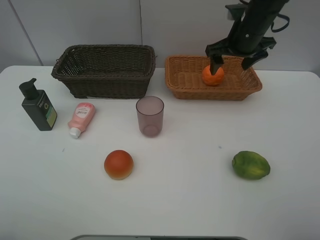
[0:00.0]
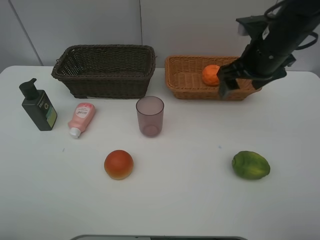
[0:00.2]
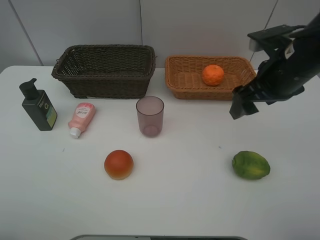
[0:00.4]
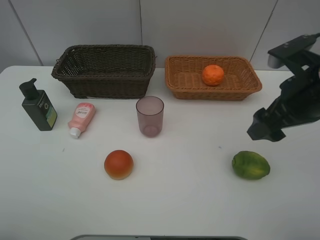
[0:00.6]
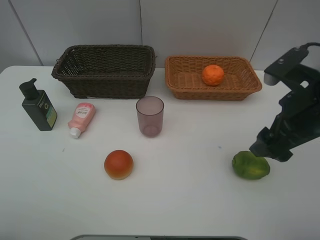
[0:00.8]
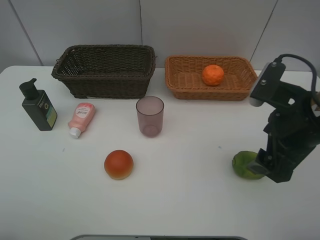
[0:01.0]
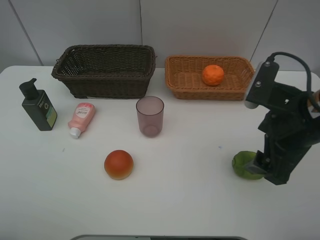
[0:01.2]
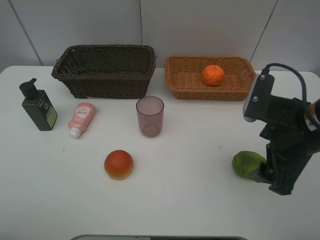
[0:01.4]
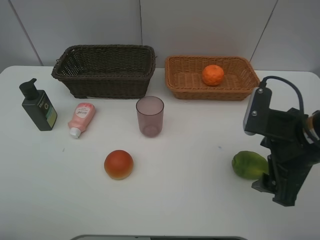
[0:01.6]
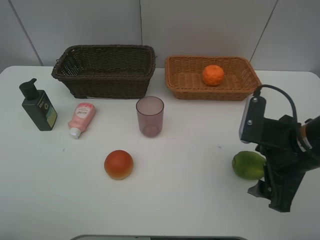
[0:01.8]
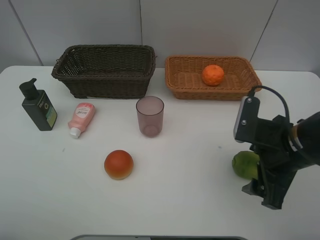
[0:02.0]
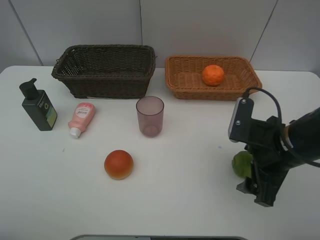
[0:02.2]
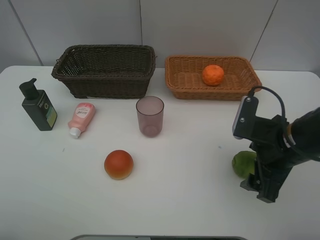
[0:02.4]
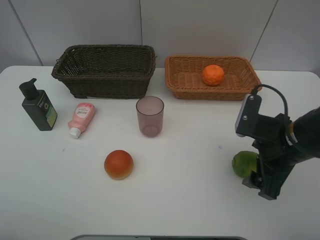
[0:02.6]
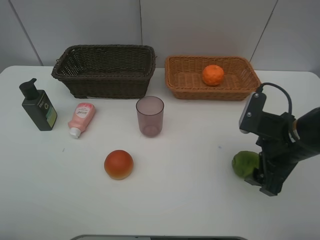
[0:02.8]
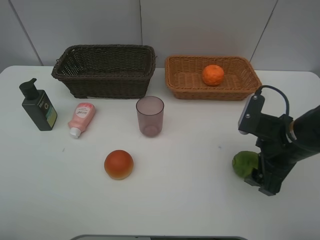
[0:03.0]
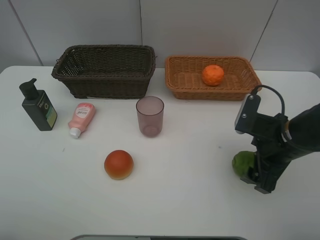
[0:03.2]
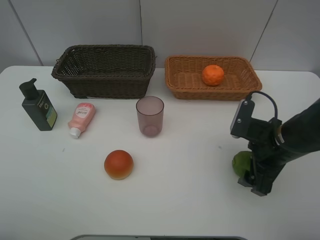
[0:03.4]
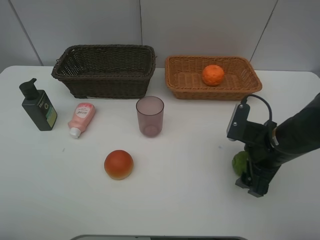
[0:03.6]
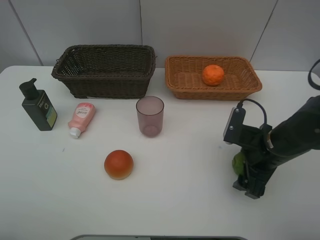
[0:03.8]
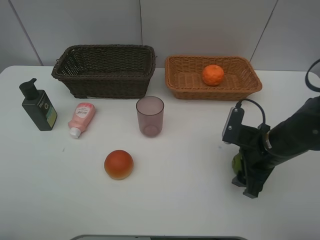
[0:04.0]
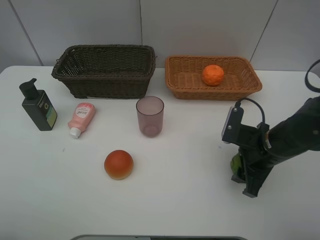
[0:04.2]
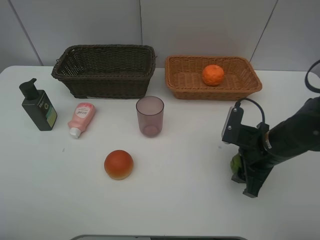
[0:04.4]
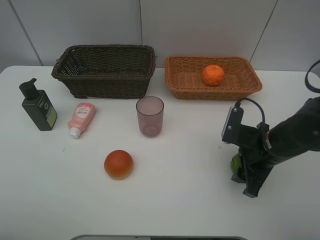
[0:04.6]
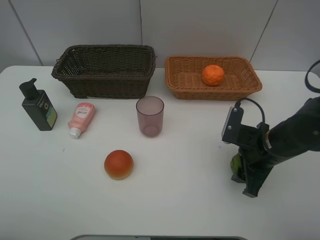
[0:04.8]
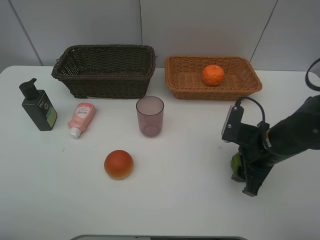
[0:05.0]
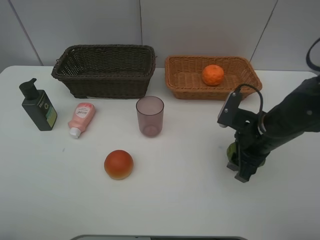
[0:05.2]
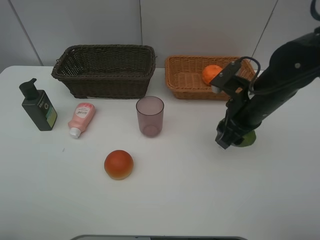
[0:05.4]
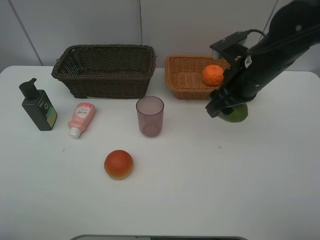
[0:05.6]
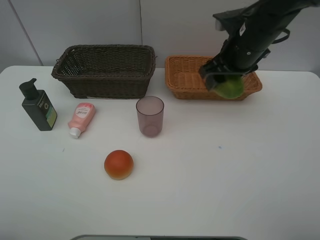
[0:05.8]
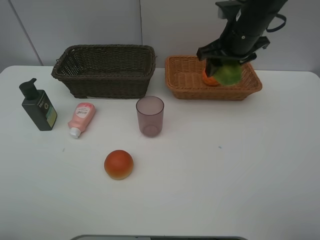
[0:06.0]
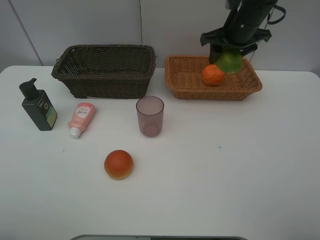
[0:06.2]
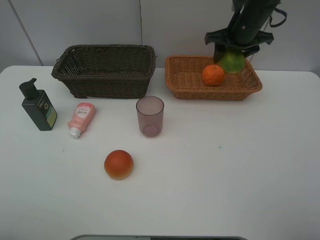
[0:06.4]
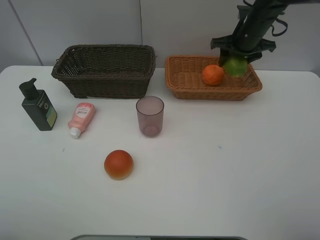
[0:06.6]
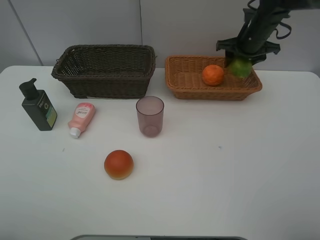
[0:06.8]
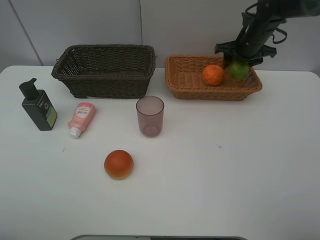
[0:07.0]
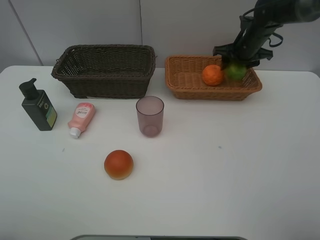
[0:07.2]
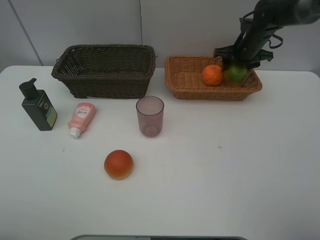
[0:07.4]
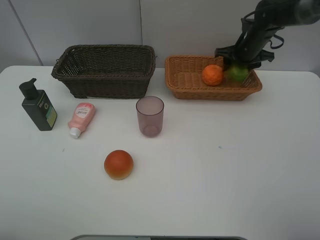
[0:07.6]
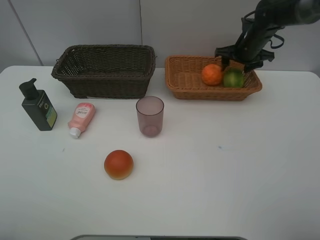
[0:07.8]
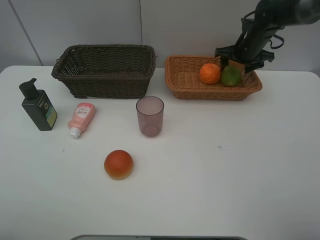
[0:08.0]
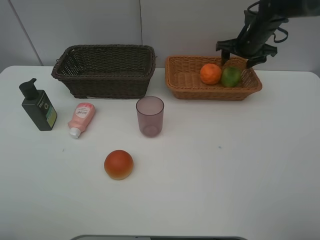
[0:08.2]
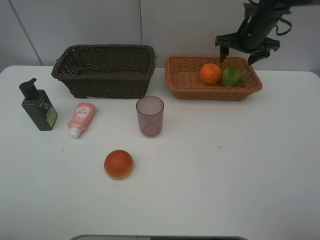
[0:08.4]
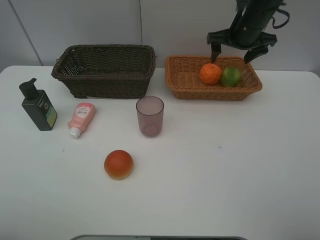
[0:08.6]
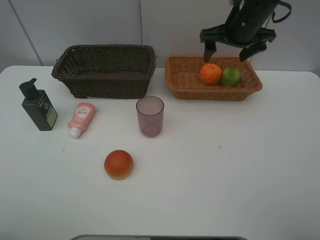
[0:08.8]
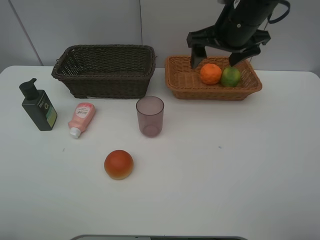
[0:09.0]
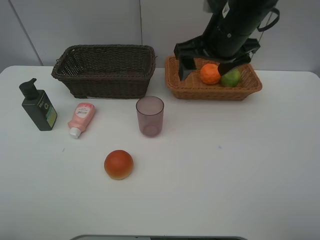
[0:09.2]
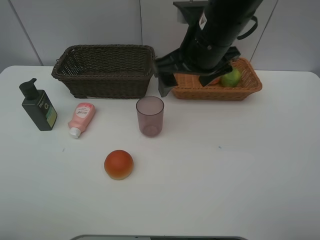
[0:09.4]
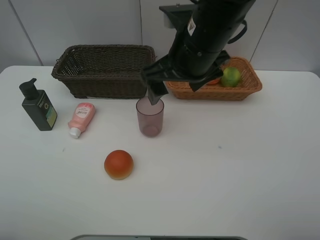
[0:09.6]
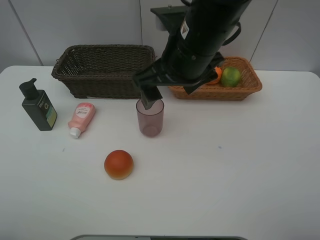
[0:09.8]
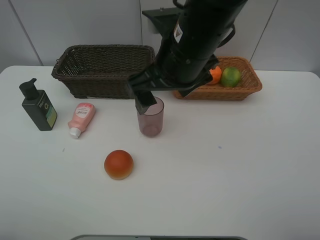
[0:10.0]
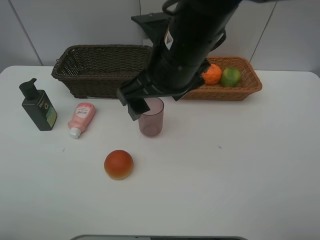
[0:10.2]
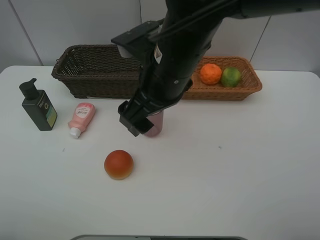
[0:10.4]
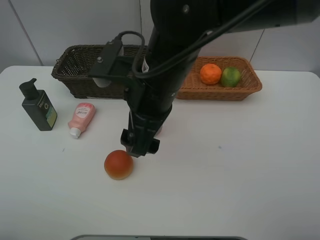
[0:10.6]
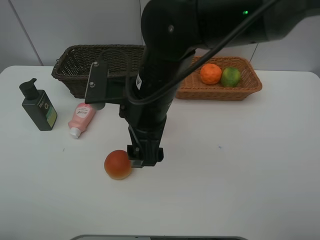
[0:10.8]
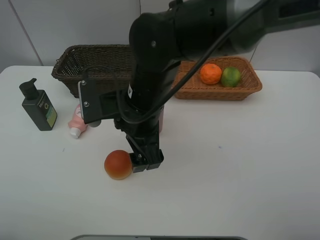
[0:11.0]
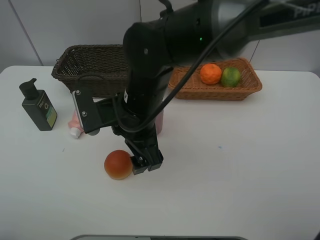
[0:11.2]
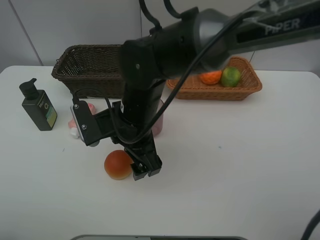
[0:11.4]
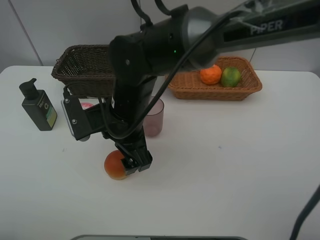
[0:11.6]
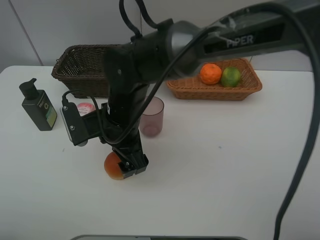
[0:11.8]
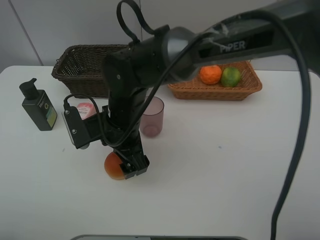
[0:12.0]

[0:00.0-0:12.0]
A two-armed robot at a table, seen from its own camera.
Task of the whole recording: place multiple objects separately in different baskets.
0:00.0 to 0:01.6: The right gripper is displaced backward by roughly 25 cm.
0:01.6 to 0:03.0: The right gripper moves some 5 cm.
0:03.0 to 0:04.4: The right gripper closes.
0:04.4 to 0:06.0: The right gripper is displaced forward and upward by some 25 cm.
0:06.0 to 0:07.6: The right gripper travels forward, downward and to the right by some 15 cm.
0:07.6 to 0:09.0: The right gripper shifts approximately 20 cm backward, to the left and upward, and opens.
0:09.0 to 0:10.4: The right gripper moves to the left and backward, approximately 15 cm.
0:10.4 to 0:12.0: The right gripper is displaced downward and to the left by some 15 cm.

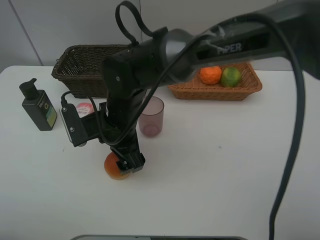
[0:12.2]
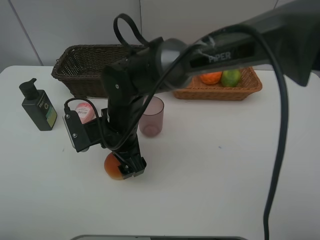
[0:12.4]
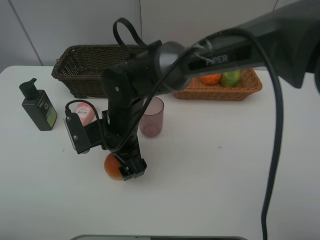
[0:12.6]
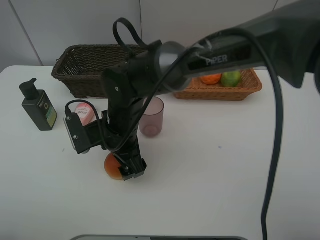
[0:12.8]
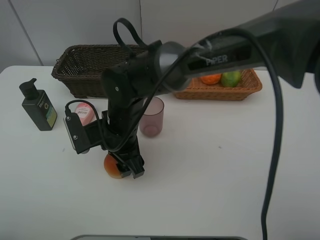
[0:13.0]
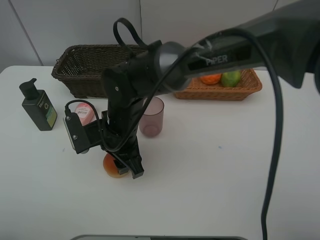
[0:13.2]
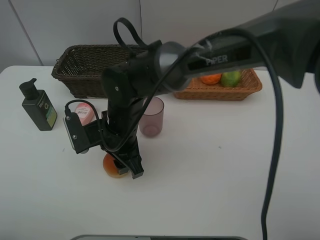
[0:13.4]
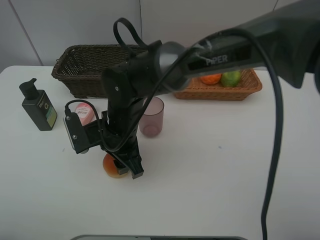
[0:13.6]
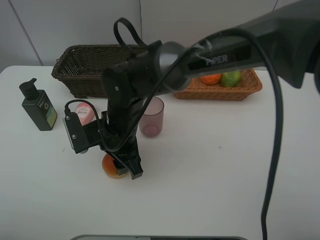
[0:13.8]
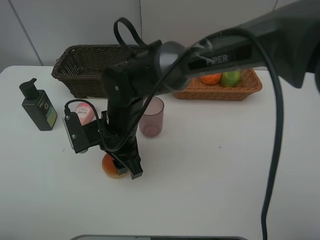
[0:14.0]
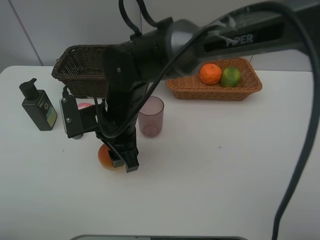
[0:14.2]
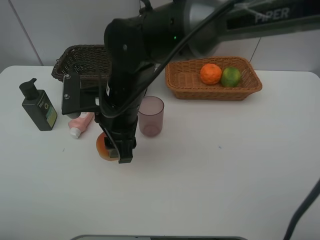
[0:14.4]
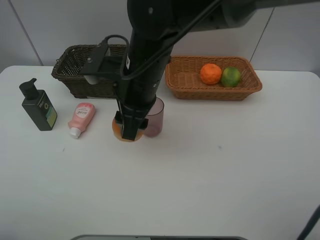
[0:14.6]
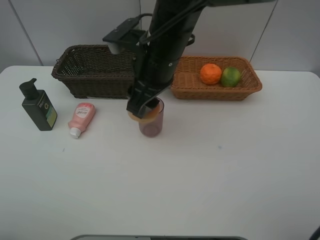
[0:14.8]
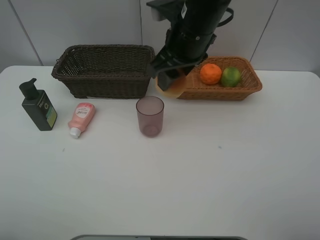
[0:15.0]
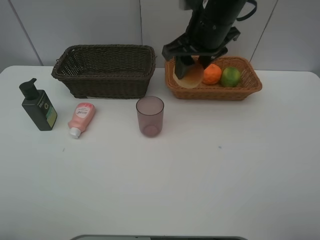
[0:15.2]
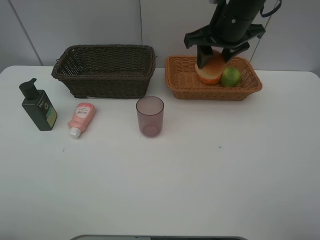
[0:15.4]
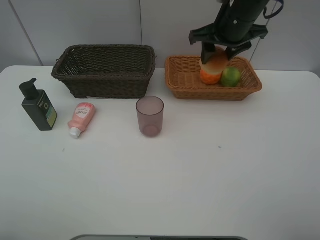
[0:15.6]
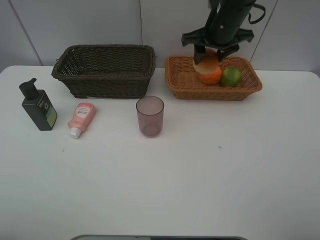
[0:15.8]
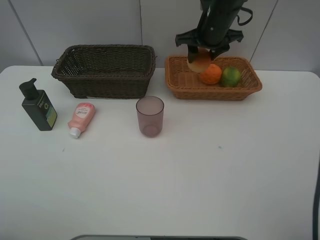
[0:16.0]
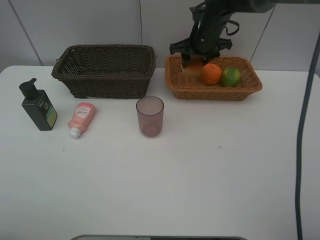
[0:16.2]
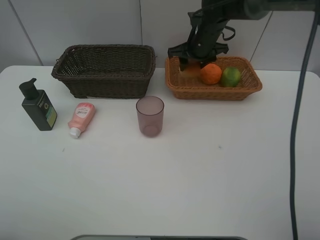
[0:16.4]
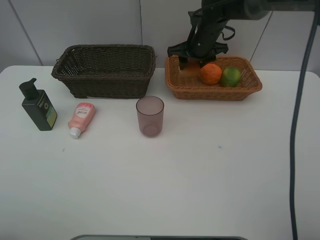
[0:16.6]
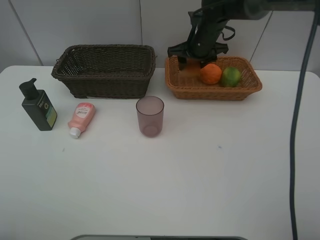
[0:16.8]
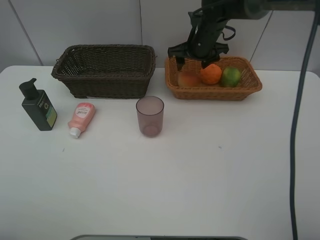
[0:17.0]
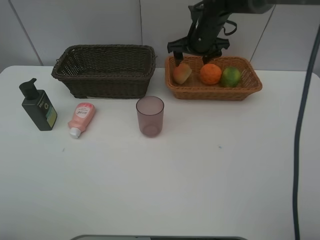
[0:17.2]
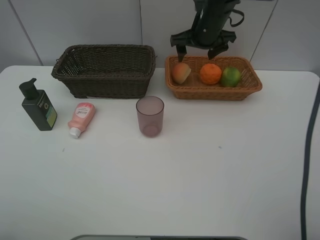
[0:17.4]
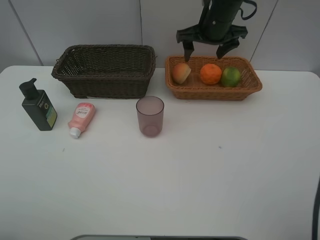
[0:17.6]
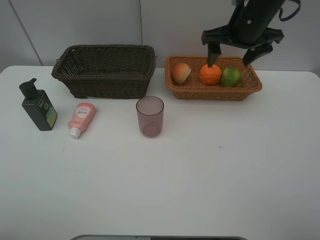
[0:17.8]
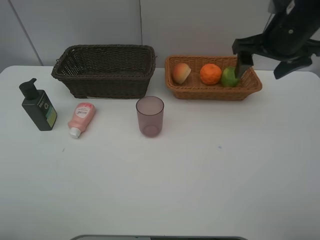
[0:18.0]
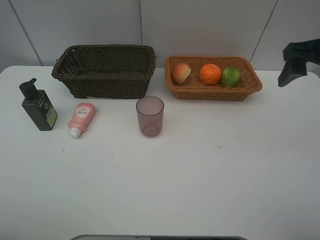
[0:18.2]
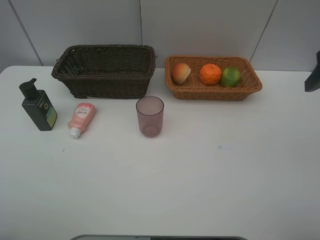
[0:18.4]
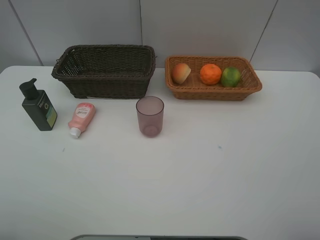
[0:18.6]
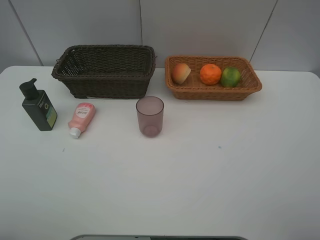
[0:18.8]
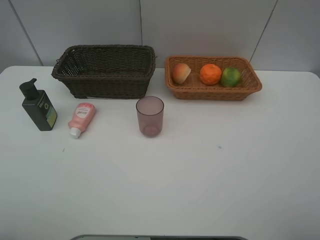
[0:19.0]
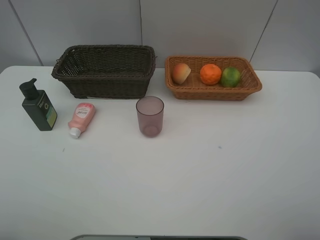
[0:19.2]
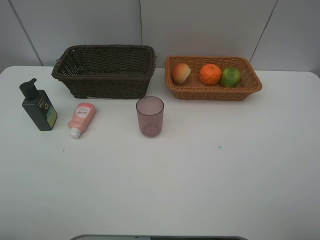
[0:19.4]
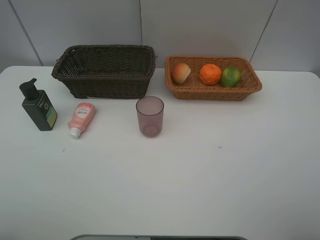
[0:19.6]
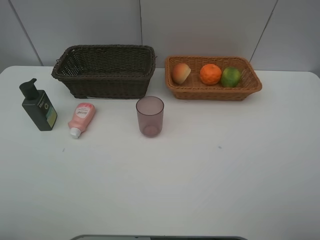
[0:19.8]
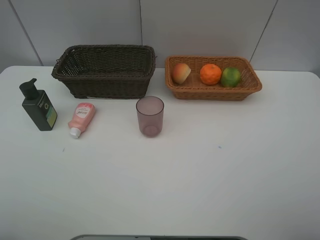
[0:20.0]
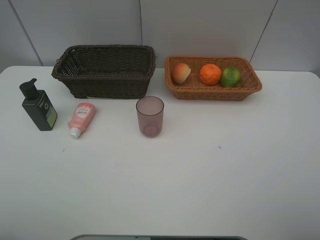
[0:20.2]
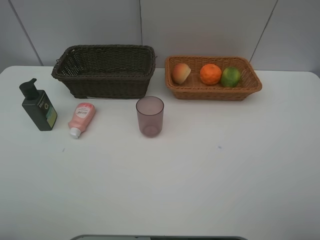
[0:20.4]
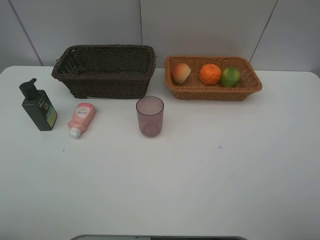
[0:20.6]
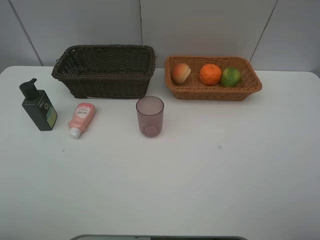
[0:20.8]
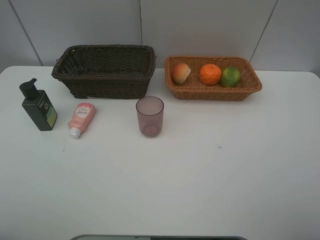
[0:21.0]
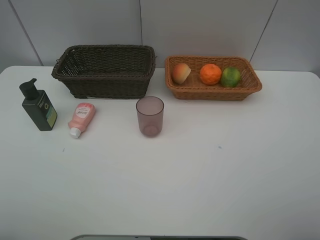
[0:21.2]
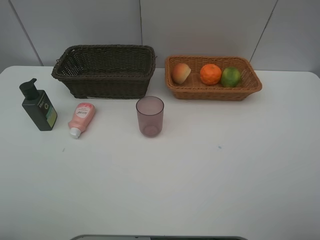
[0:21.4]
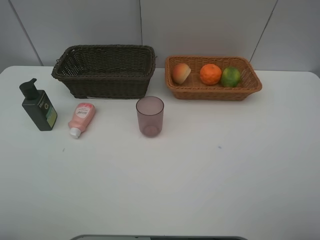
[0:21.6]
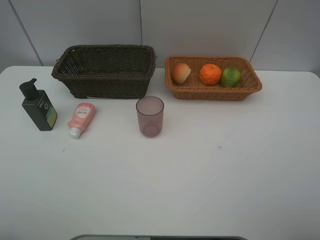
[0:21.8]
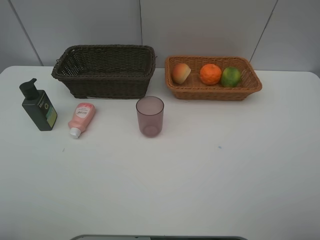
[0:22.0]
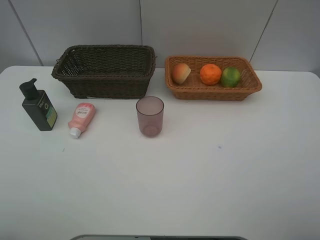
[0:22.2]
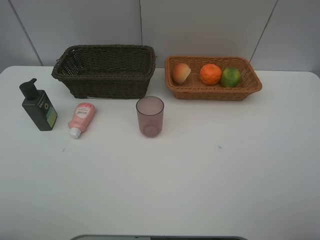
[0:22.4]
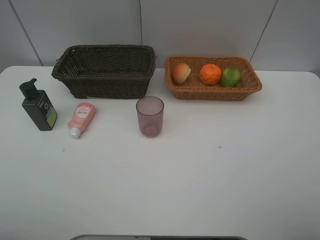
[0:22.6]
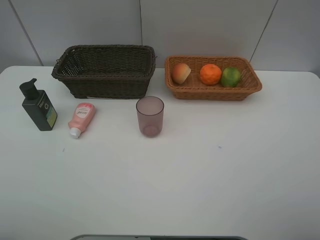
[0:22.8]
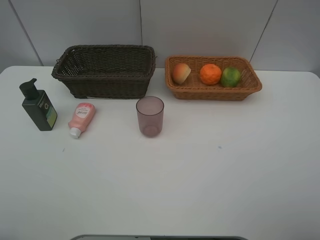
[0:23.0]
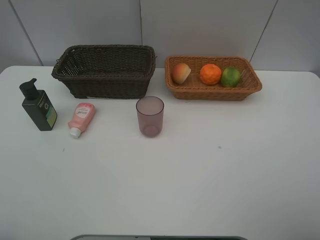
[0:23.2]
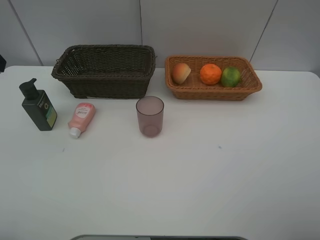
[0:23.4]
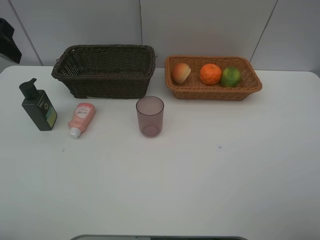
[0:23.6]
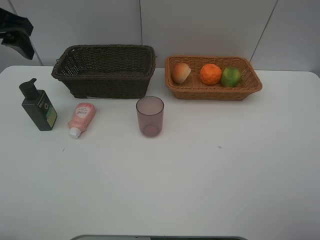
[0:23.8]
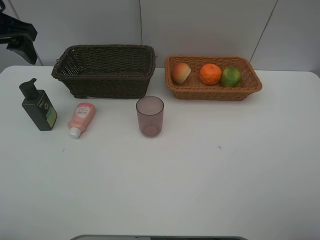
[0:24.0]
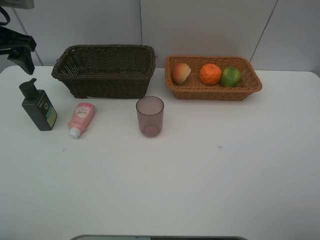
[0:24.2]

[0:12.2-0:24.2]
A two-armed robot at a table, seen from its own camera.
Task of the whole recording: place multiple objects separately in different baskets.
0:12.2 to 0:13.8: The right gripper closes.
0:13.8 to 0:15.2: The right gripper moves upward, to the right and forward, some 25 cm.
0:15.2 to 0:16.6: The right gripper goes about 15 cm forward and downward.
0:16.6 to 0:18.2: The right gripper is displaced backward, to the right and upward by about 30 cm, and opens.
0:18.2 to 0:19.8: The right gripper travels backward by about 25 cm.
0:21.2 to 0:22.6: Both grippers stay put.
0:22.6 to 0:24.2: The left gripper moves forward, some 35 cm.
